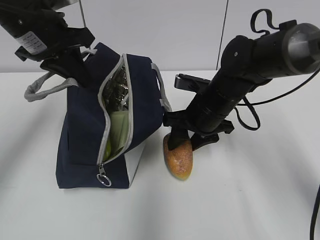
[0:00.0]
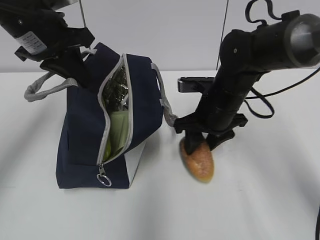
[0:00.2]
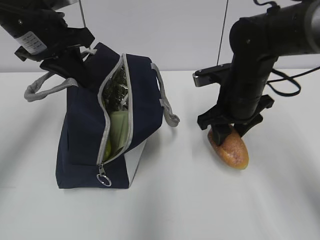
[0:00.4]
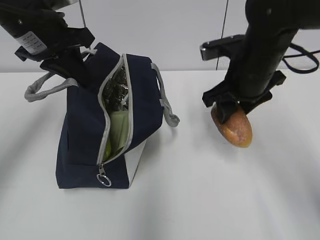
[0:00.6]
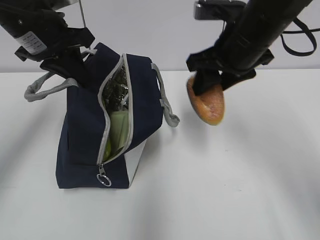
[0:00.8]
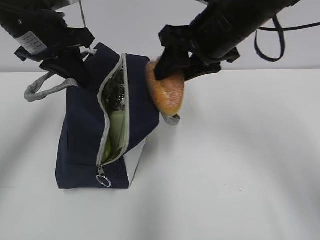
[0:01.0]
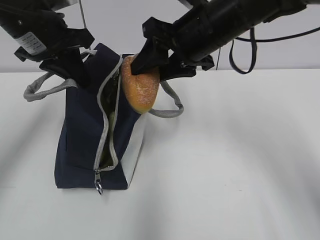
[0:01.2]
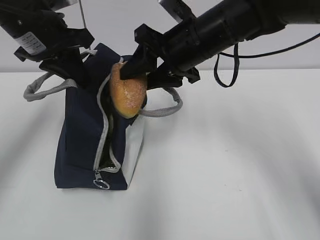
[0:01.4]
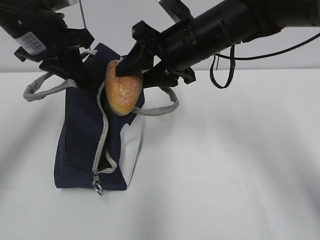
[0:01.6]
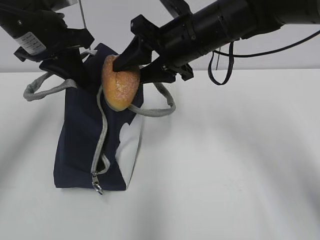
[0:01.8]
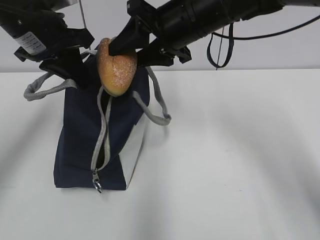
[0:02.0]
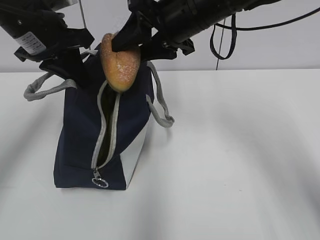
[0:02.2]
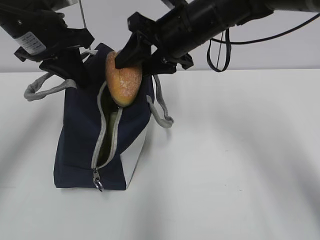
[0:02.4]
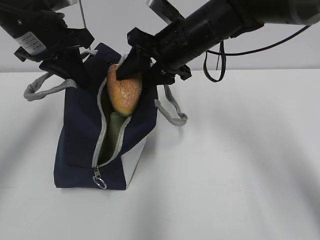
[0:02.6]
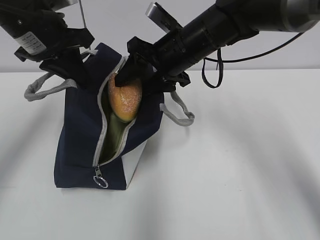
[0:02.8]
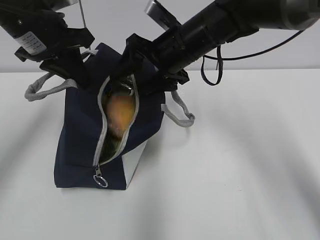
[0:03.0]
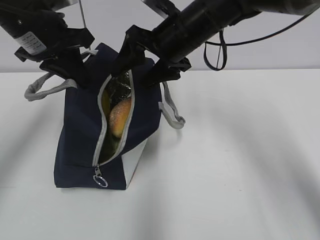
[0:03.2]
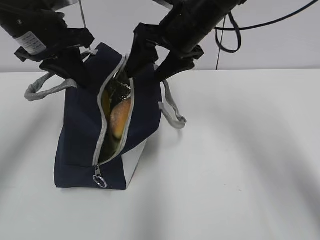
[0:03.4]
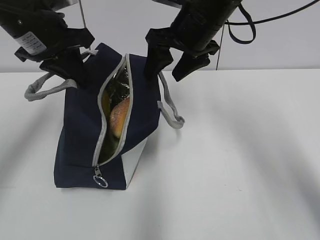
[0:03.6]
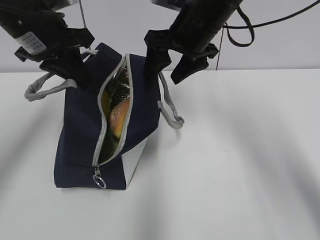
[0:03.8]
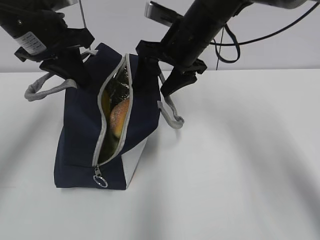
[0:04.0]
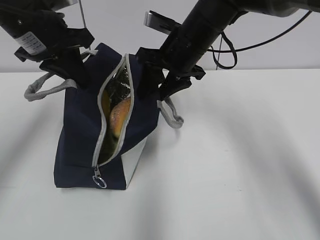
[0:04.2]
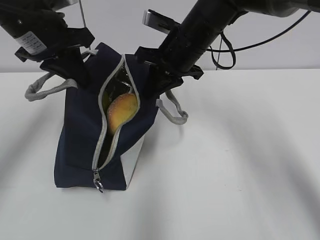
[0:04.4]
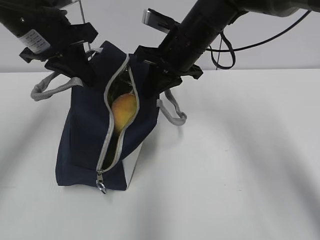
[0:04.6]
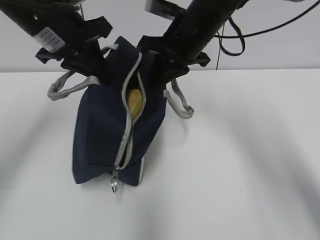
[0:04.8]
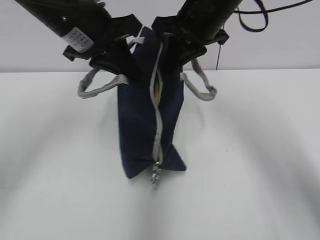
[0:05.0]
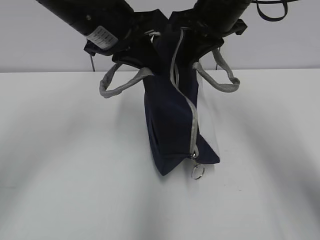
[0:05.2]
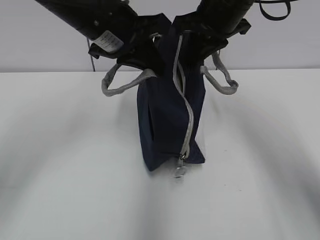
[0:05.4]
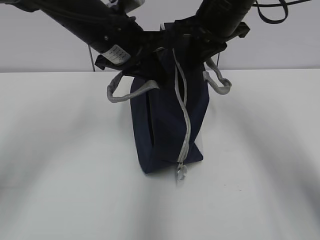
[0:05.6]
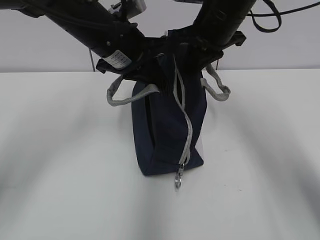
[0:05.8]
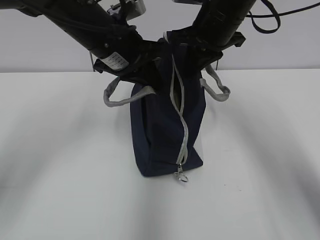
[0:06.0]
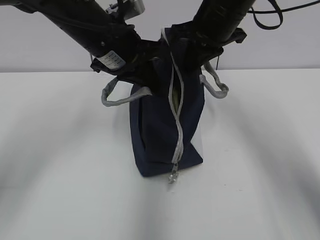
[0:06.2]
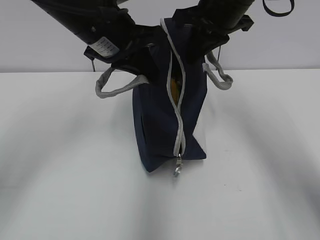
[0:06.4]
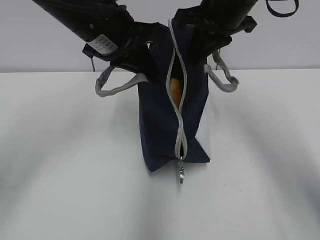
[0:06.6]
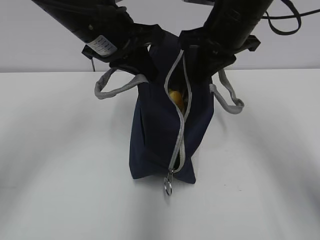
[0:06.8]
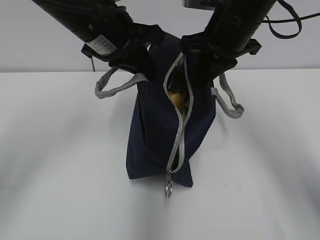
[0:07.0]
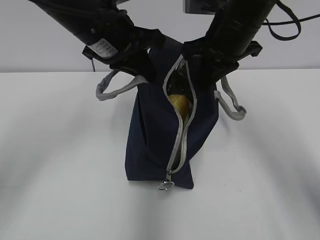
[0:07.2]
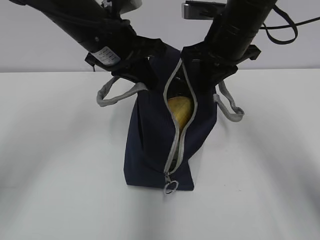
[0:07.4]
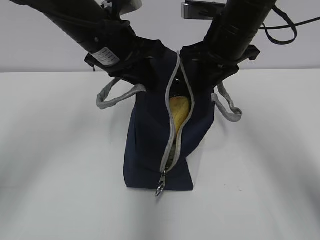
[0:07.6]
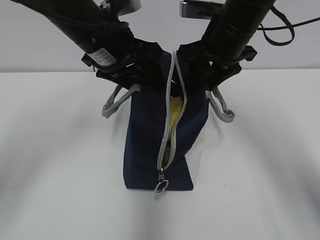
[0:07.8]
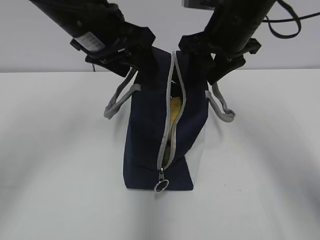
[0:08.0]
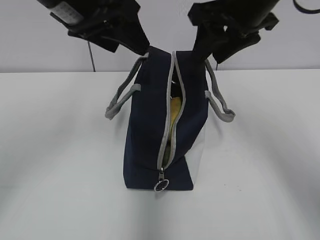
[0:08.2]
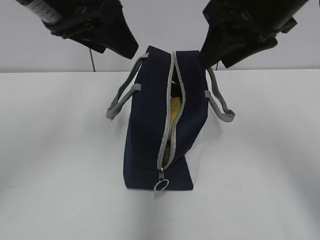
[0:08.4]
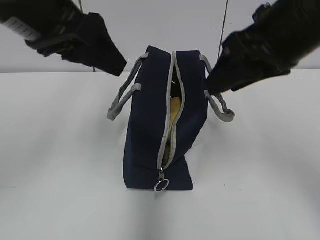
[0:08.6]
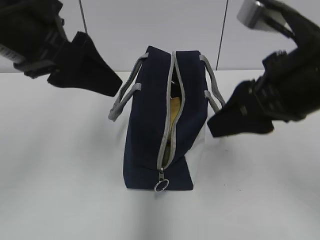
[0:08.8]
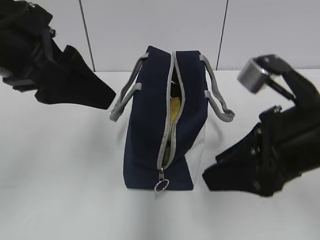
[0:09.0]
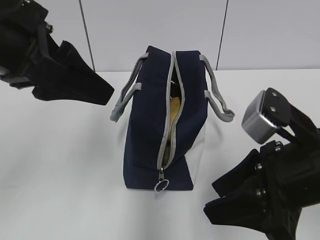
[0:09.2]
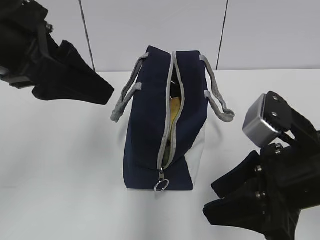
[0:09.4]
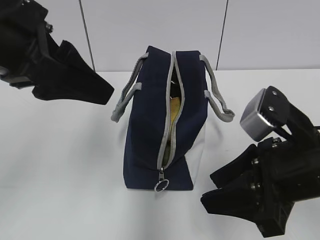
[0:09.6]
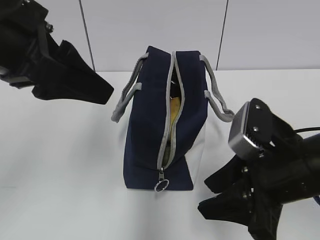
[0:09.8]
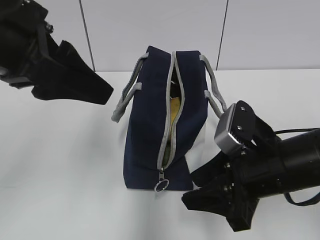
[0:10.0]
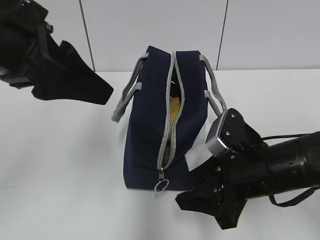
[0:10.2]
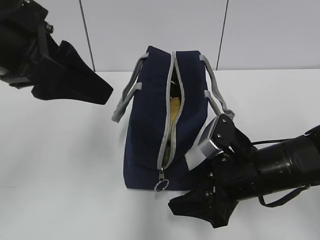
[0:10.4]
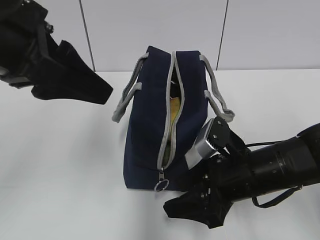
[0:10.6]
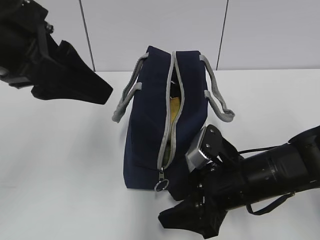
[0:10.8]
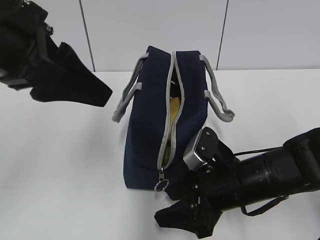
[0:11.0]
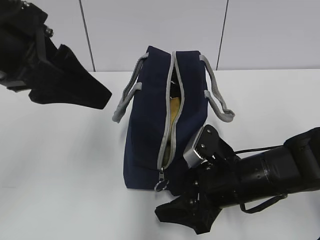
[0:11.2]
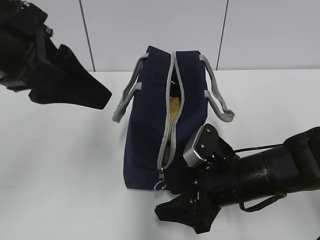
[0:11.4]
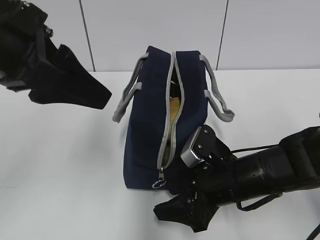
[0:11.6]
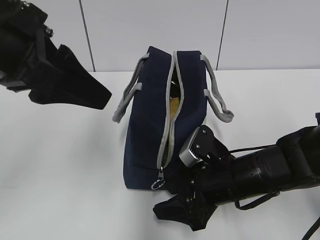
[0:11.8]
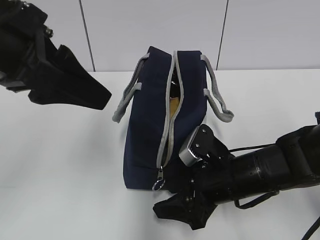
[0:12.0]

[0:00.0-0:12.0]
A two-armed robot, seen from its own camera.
Step, 0:03.0 to 0:04.6: Grab the lunch bag with your right hand.
Step, 0:04.8 to 0:07.6: Move the lunch bag to the right.
0:00.0 to 0:01.6: The right gripper is displaced upward by about 10 cm.
0:01.6 to 0:03.0: The right gripper opens.
0:03.0 to 0:04.4: The right gripper closes its fingers.
0:04.4 to 0:06.0: The left gripper goes some 10 cm to the right. Meanwhile the right gripper ends up roughly 5 cm from where it was.
0:06.0 to 0:07.6: The grippers make only small movements.
0:07.6 to 0:09.0: The left gripper moves backward, to the left and upward, approximately 15 cm, and opens its fingers, while the right gripper shifts roughly 20 cm backward, and opens up.
0:09.0 to 0:10.4: The right gripper shifts roughly 10 cm downward.
0:10.4 to 0:12.0: The grippers move only a little.

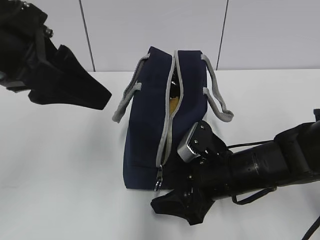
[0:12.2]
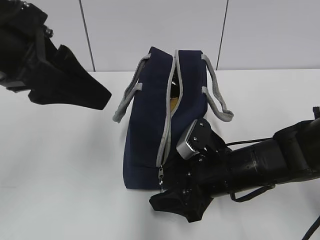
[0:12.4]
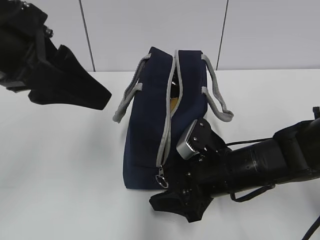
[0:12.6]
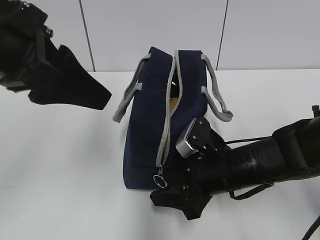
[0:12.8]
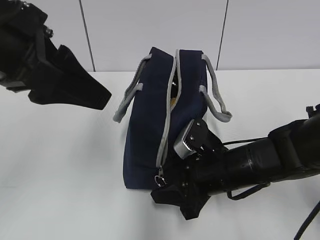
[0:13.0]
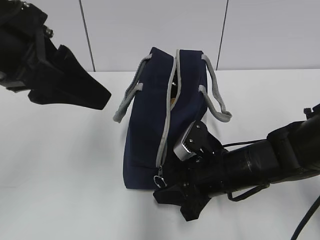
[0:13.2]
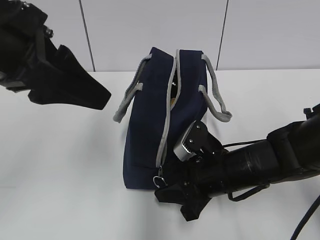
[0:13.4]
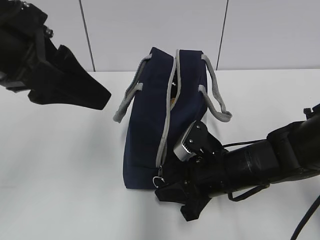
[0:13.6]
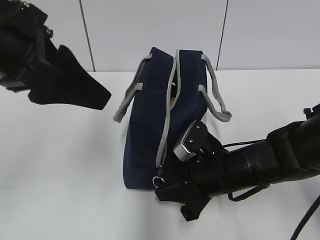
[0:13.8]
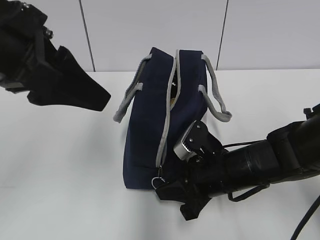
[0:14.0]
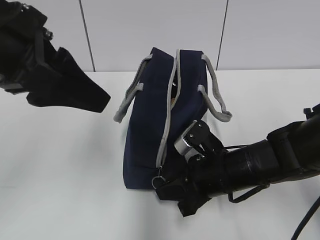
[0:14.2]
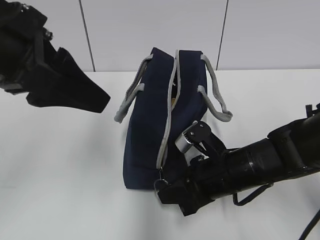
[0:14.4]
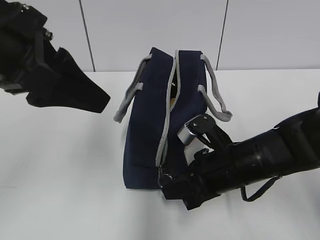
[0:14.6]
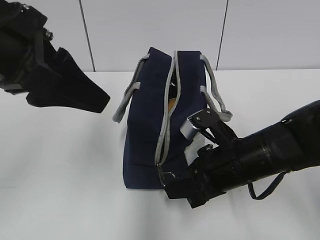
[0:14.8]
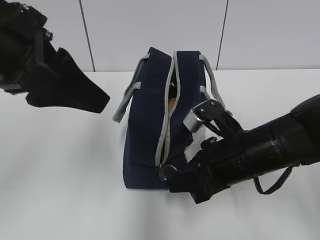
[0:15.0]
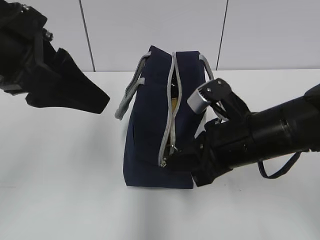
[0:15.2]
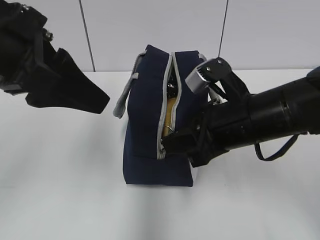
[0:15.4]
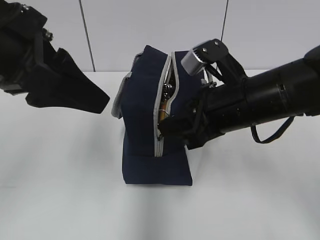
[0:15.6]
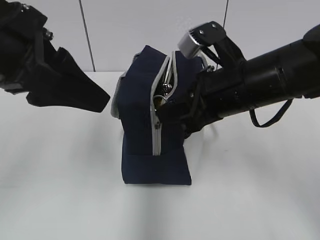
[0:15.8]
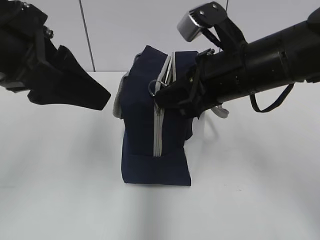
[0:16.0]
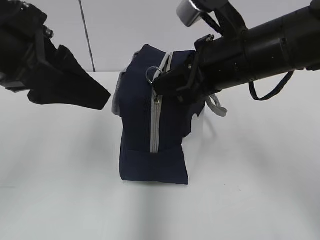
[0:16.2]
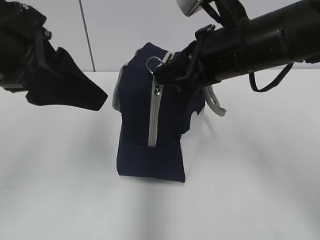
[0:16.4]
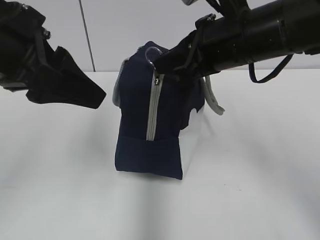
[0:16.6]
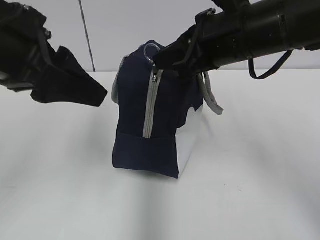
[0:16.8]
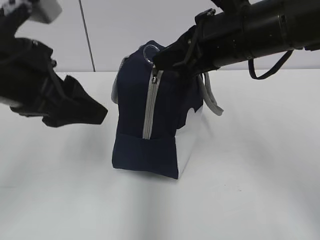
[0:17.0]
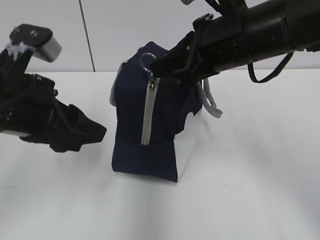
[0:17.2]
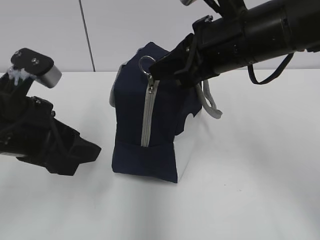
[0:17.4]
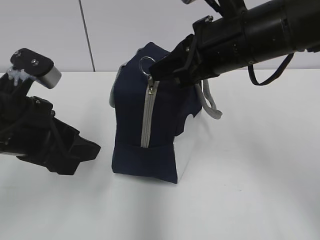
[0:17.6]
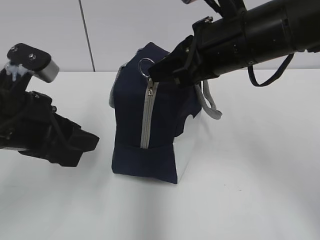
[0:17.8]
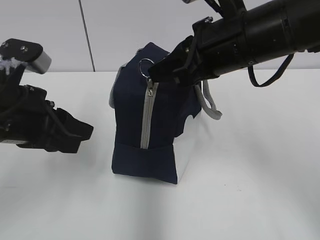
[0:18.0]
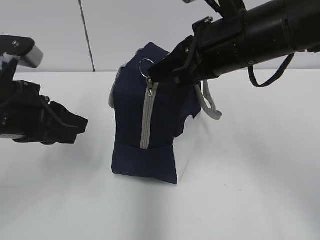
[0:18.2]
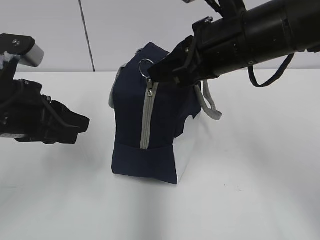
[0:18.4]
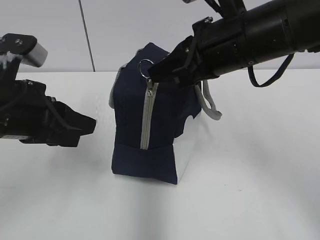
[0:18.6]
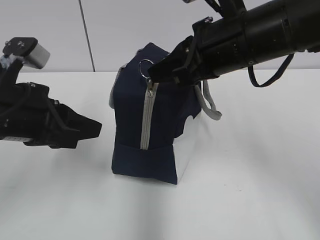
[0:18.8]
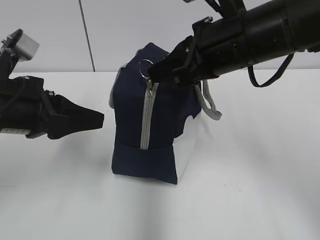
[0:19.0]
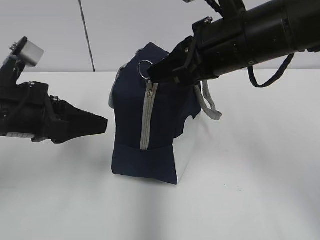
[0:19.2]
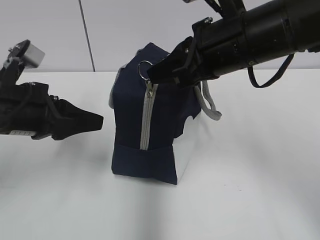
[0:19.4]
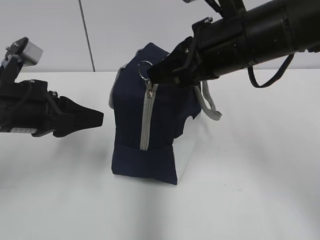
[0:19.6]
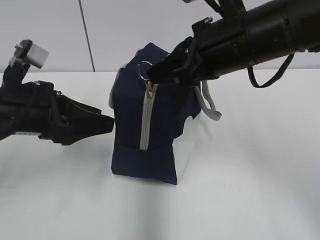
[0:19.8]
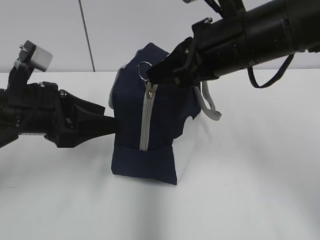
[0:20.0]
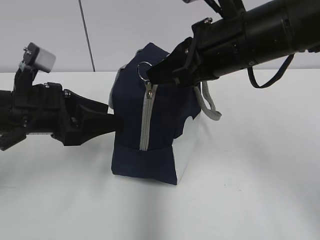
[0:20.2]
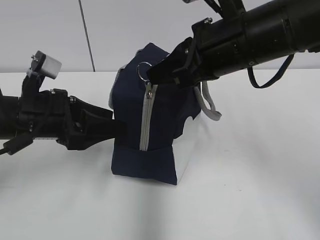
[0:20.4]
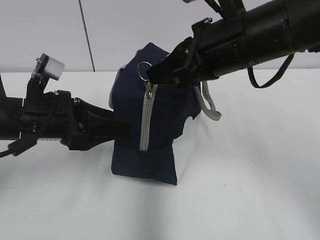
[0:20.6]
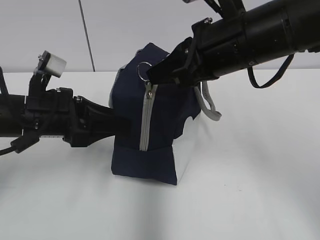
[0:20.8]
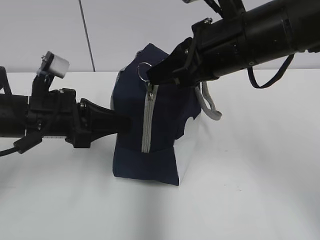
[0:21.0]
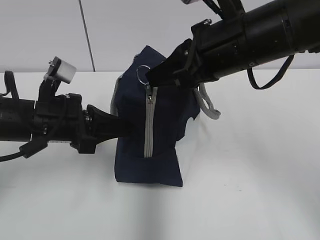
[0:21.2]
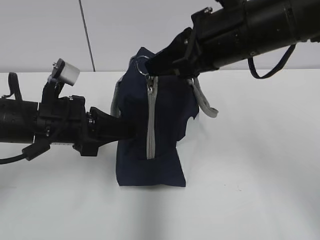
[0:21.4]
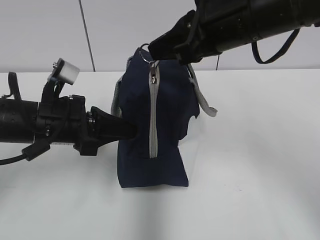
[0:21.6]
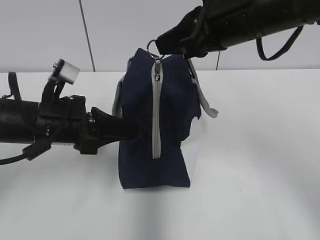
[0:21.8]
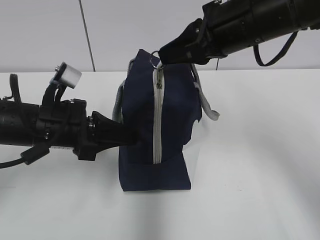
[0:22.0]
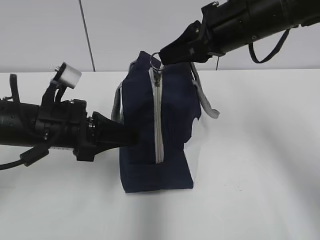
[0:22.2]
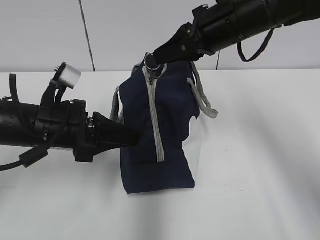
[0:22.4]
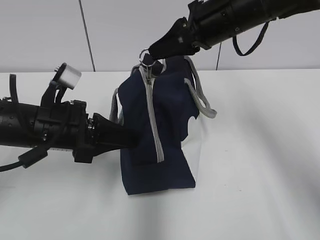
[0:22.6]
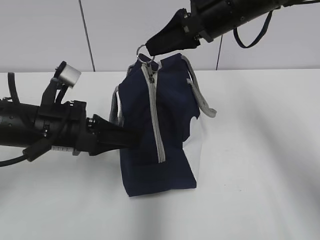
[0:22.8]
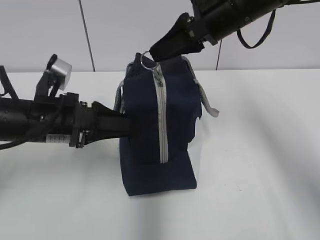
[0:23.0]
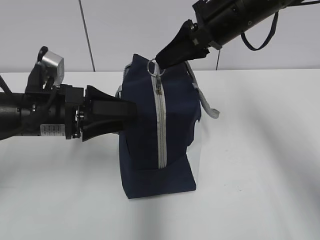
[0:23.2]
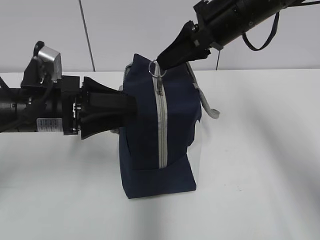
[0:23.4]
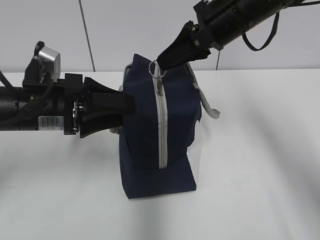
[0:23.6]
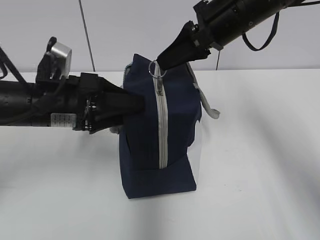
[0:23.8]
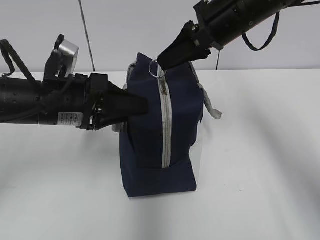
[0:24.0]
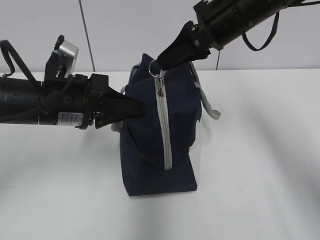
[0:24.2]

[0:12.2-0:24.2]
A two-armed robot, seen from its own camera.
Step, 0:12.2 to 0:22.8: Grab the lunch bag with your left hand.
0:12.2 to 0:13.8: The right gripper closes its fingers.
0:13.8 to 0:15.2: The right gripper moves upward, approximately 10 cm.
0:15.2 to 0:16.6: The right gripper moves upward and forward, some 10 cm.
0:16.6 to 0:18.2: The left gripper is displaced downward by roughly 10 cm.
0:19.8 to 0:21.2: The left gripper closes.
0:21.2 to 0:22.6: The right gripper goes about 10 cm forward.
0:22.6 to 0:24.2: The left gripper opens and closes again.
